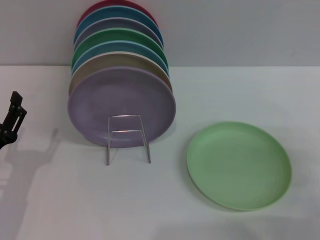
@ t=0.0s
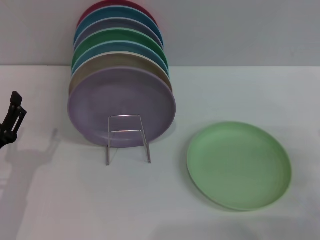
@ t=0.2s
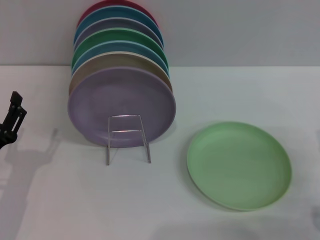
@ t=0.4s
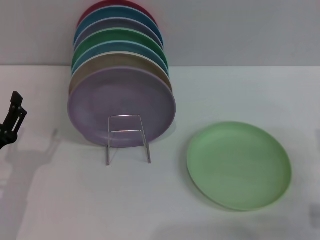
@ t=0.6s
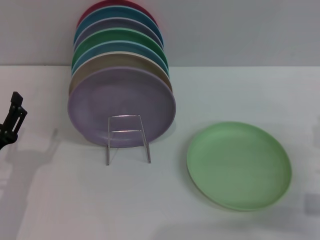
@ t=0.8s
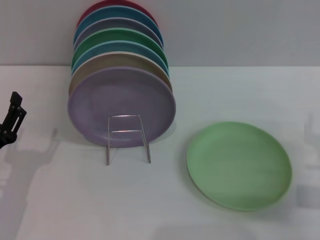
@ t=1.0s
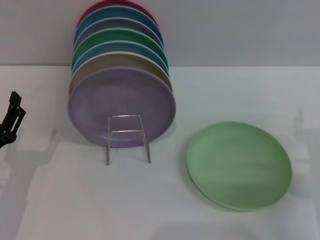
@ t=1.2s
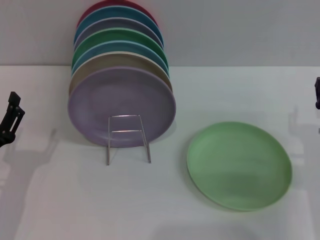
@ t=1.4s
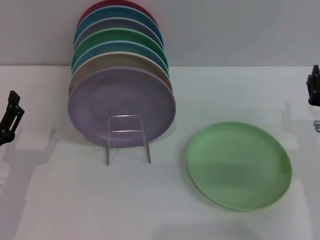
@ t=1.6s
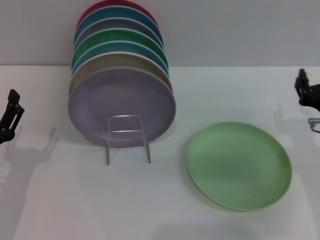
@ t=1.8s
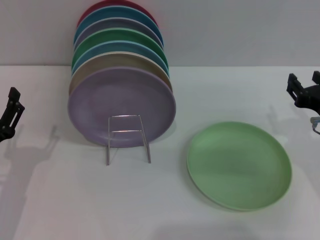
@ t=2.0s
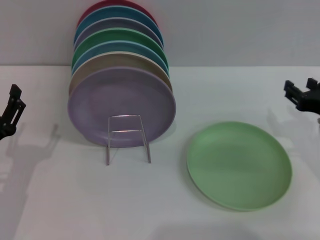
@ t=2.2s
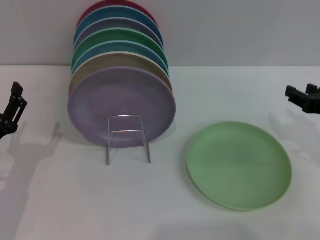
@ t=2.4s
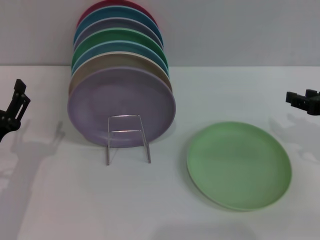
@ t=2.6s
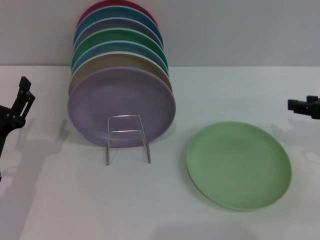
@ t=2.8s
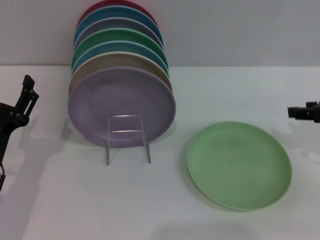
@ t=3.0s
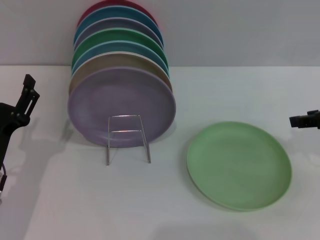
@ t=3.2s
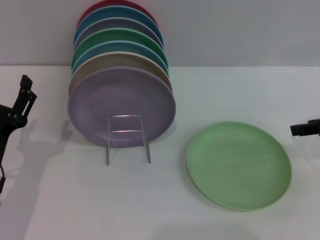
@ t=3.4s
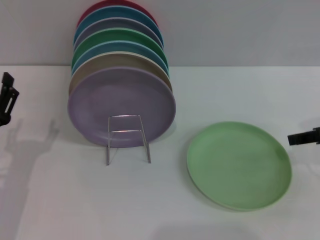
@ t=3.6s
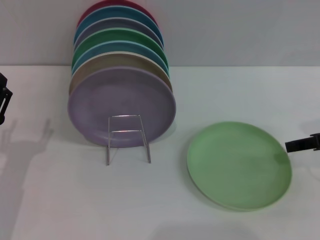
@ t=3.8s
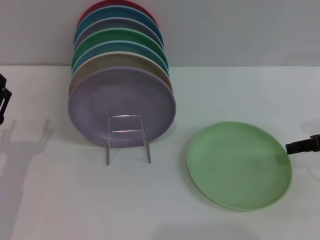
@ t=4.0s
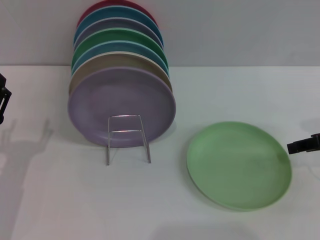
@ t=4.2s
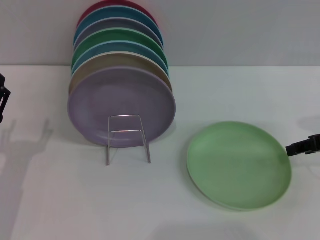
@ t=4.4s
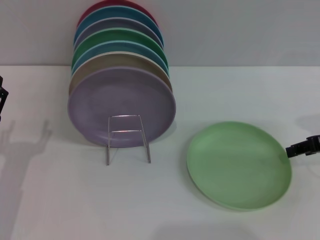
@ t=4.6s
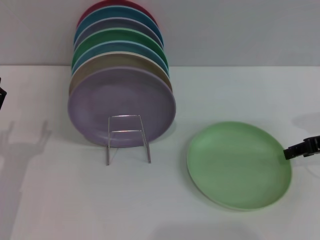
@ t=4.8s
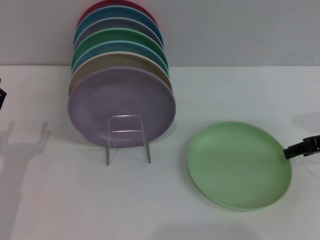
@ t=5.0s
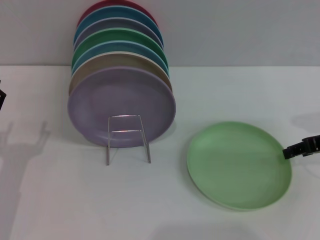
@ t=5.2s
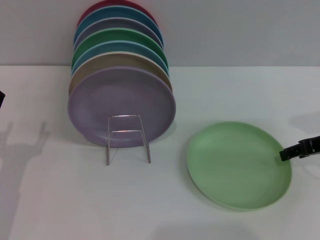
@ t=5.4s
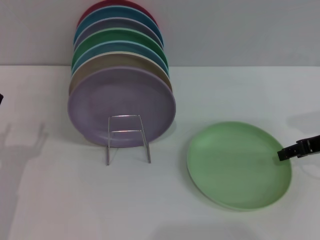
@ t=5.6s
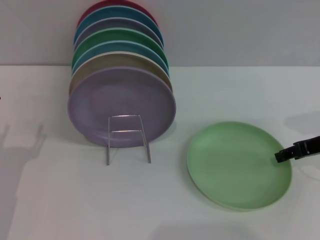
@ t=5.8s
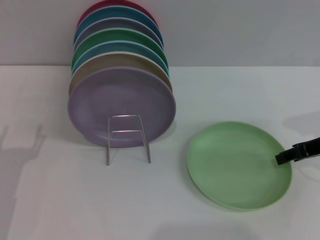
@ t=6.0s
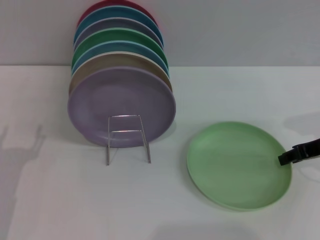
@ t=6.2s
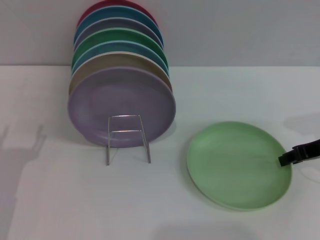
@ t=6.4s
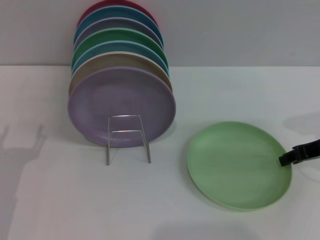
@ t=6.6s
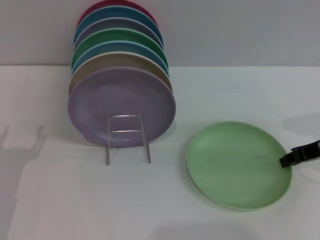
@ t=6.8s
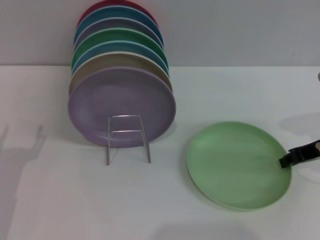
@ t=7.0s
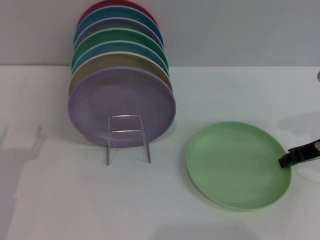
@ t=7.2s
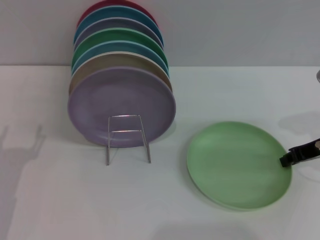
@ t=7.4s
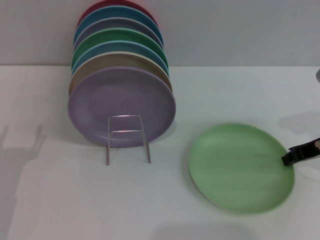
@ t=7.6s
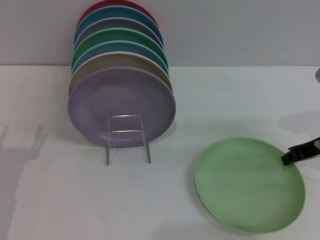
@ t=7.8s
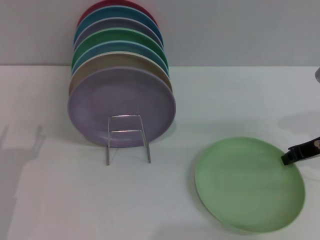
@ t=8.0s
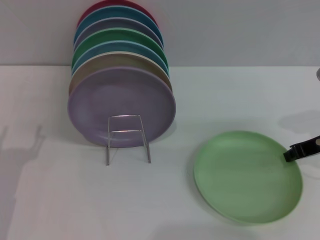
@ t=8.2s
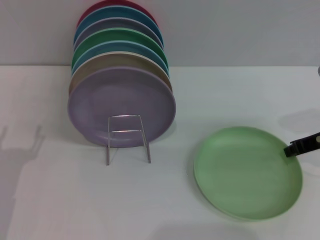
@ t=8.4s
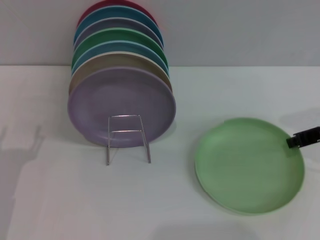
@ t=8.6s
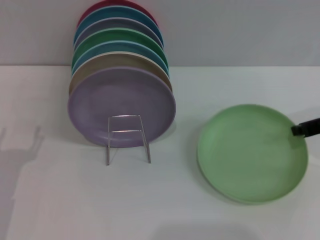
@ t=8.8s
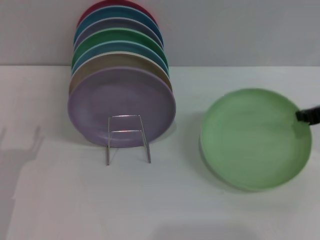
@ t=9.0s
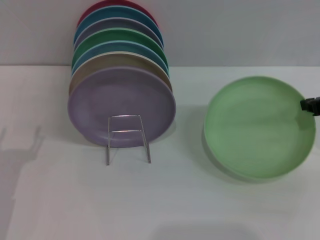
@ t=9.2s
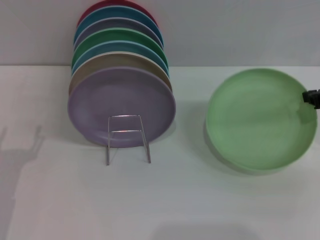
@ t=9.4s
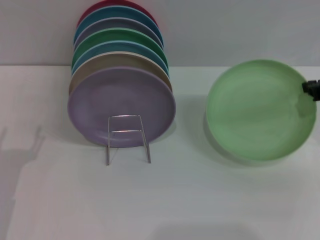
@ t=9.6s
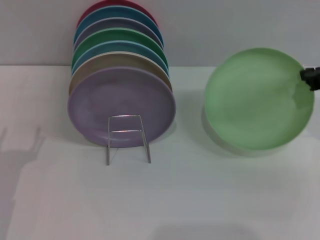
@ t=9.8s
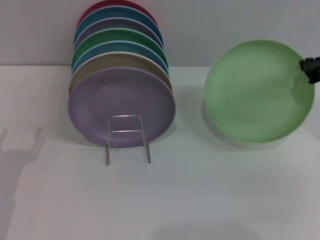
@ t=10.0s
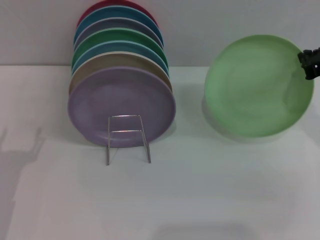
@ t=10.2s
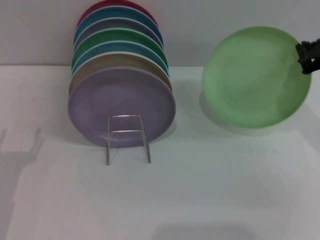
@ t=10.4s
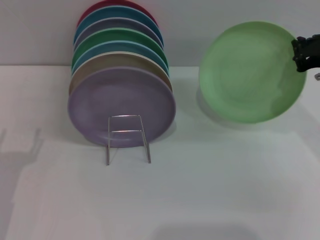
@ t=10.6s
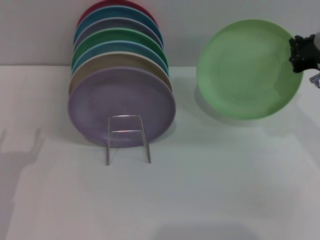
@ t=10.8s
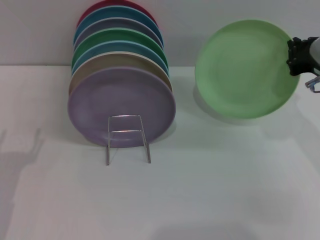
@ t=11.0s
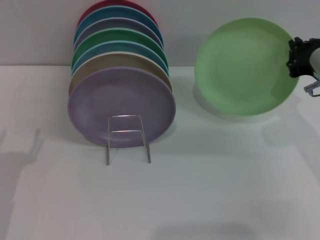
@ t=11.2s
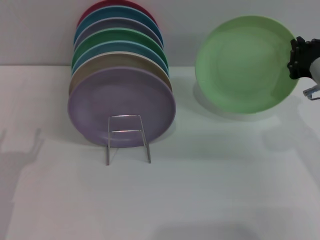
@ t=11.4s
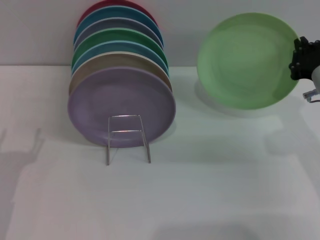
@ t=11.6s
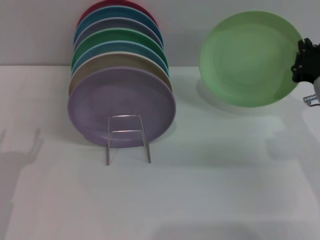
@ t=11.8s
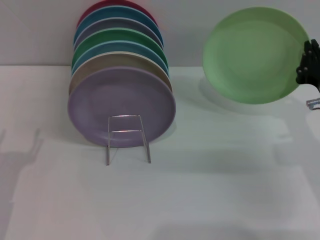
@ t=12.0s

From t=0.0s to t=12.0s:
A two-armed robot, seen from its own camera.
Task of the whole recording: Grip the plate with one hand, pass it to the other, then set it on the shelf.
Step, from t=0.0s to t=9.2s: Pick up the plate with the right gripper.
From t=0.0s to t=1.6s: The right gripper heads to the left and forward, covering about 10 cm.
From t=1.6s to t=3.0s: The right gripper is displaced upward and to the right by some 10 cm.
From t=4.4s to t=6.0s: The grippers move only a little.
From t=6.0s to t=7.6s: The right gripper closes its fingers.
From t=7.6s to t=9.0s: The grippers move only a little.
From t=10.4s to t=12.0s: The right gripper goes approximately 10 cm downward.

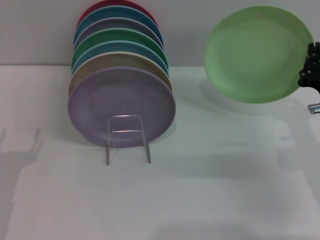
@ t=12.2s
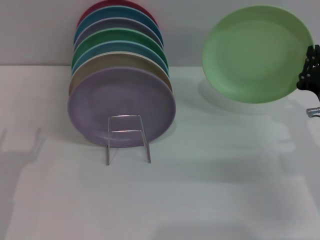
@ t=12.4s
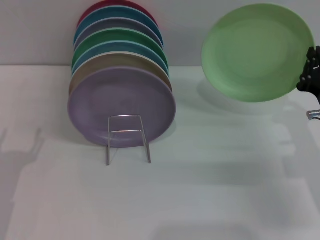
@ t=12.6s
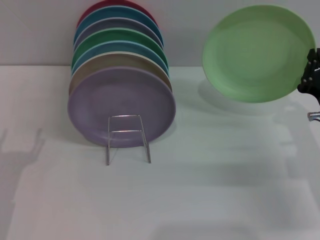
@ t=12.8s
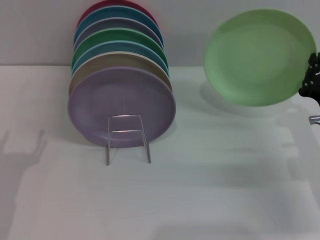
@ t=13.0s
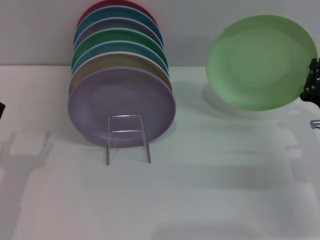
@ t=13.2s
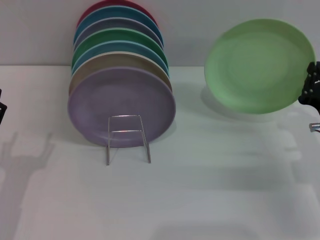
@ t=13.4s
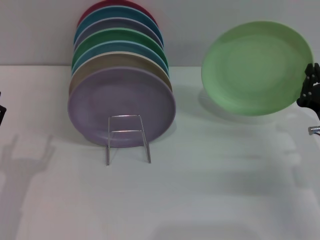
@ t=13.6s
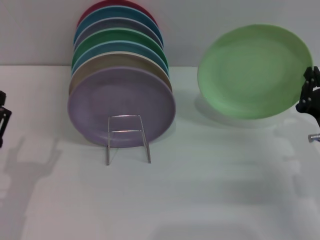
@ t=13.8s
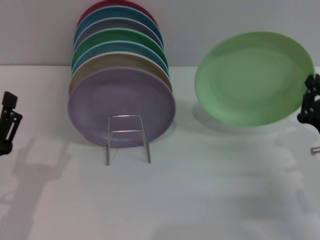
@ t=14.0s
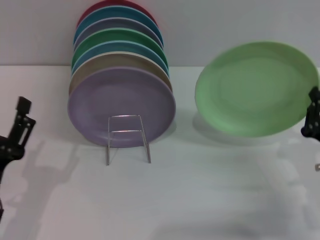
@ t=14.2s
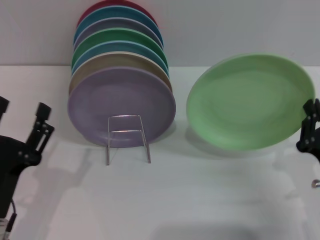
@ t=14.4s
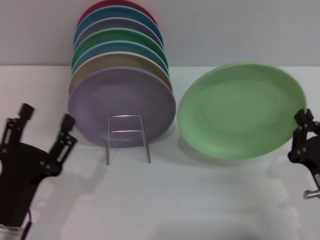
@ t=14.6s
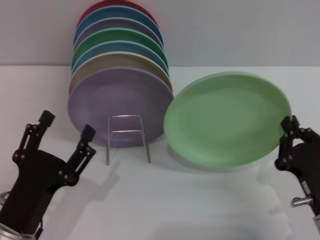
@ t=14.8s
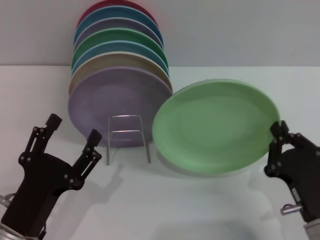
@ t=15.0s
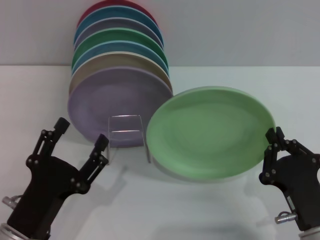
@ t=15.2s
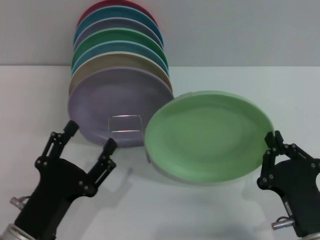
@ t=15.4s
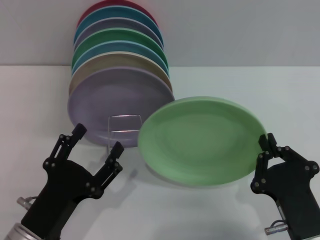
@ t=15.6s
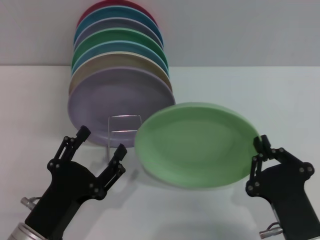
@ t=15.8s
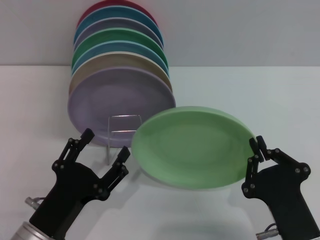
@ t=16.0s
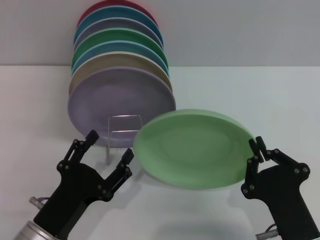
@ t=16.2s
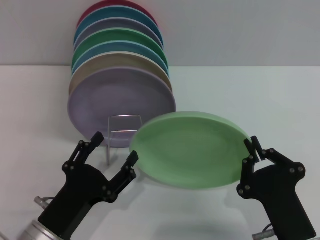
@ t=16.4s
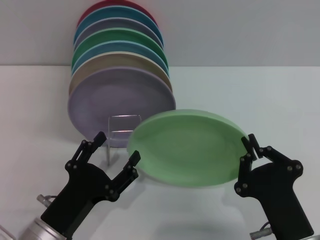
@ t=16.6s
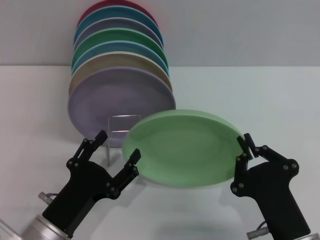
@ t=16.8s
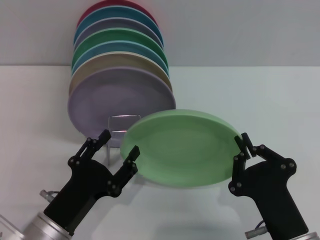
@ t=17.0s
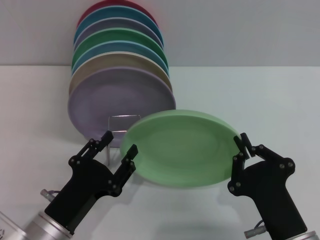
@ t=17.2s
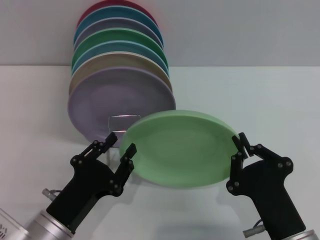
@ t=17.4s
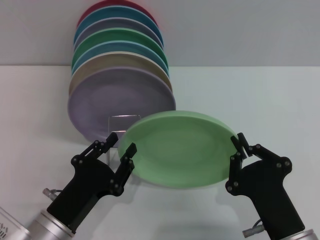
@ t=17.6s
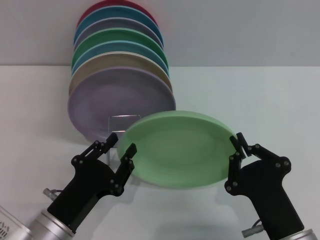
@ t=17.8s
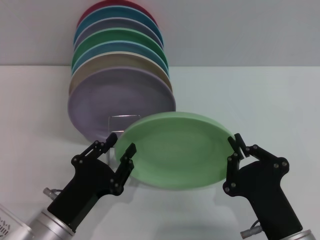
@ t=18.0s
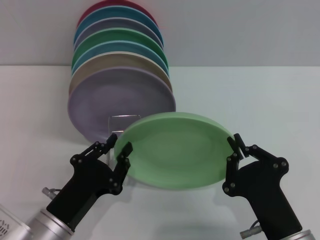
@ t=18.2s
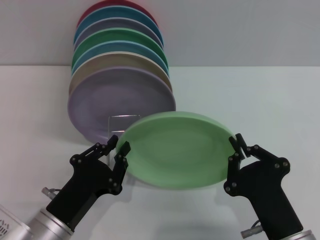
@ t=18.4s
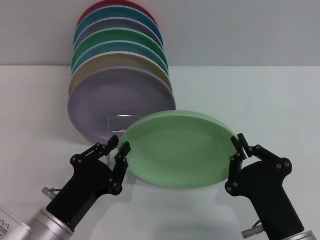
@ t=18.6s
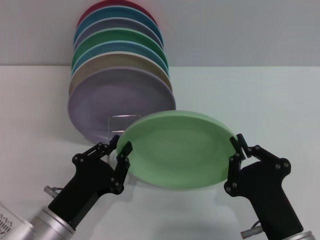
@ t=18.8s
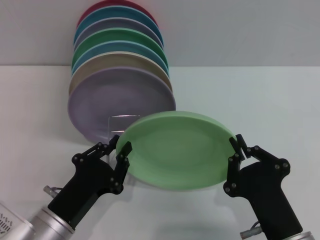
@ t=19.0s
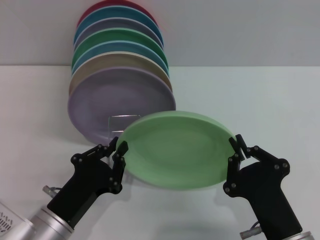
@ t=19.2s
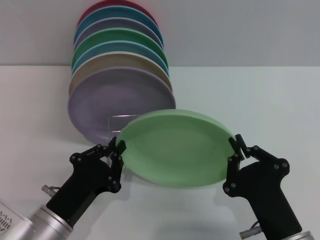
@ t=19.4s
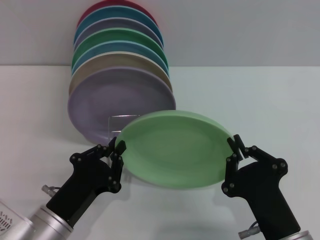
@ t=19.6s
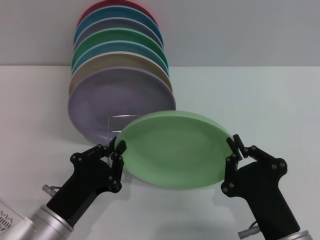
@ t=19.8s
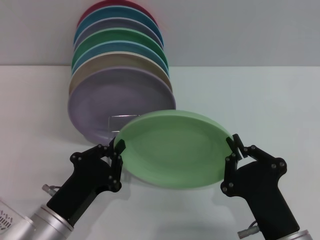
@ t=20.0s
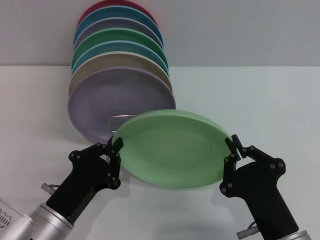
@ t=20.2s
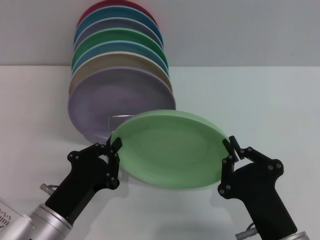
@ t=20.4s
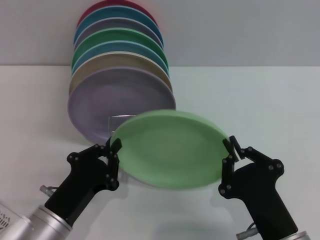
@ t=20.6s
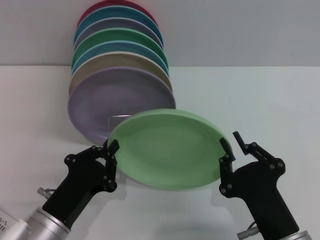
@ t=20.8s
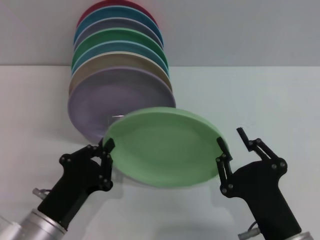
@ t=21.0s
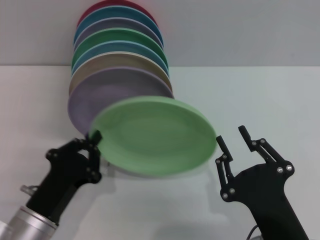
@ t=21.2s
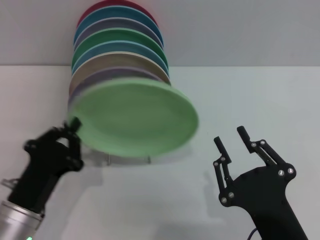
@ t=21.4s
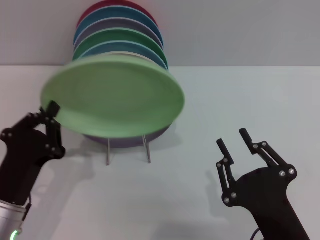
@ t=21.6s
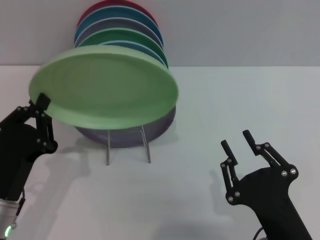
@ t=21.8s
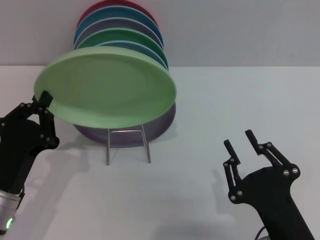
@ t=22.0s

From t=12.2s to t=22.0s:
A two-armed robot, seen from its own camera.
Task of the whole recording: Grip the plate with one hand, pass it to the other, then set it on the shelf.
Step, from t=12.2s to t=21.4s: Pass the plate from the right gripper to the left gripper.
From t=12.2s to t=13.6s: There are only small adjustments of the grippers.
From t=13.6s to t=15.0s: The left gripper is displaced to the right by roughly 5 cm. Meanwhile the right gripper is displaced backward and to the left by approximately 15 cm.
From t=15.0s to t=16.4s: The right gripper ends up approximately 5 cm from where it was.
From t=16.4s to t=17.8s: The left gripper closes.
From t=17.8s to t=20.6s: Both grippers stay put.
From t=20.6s to t=22.0s: The left gripper ends up roughly 5 cm from where it was. The right gripper opens.
